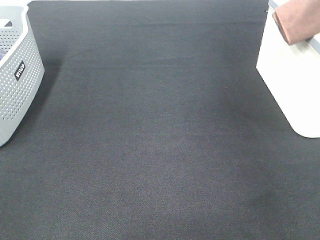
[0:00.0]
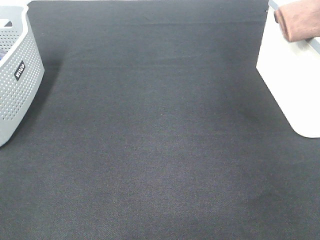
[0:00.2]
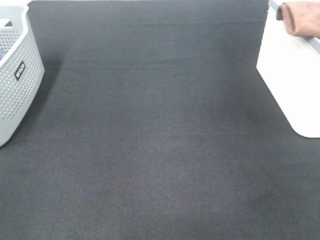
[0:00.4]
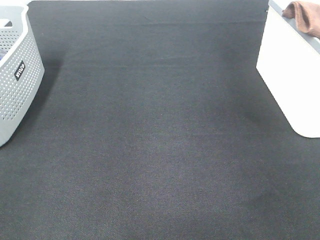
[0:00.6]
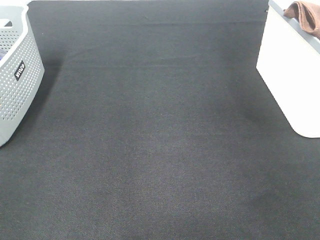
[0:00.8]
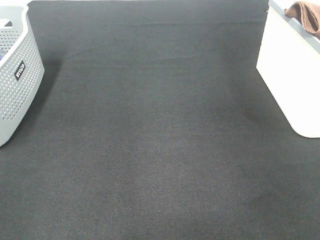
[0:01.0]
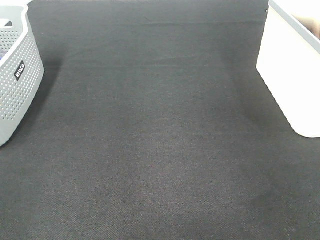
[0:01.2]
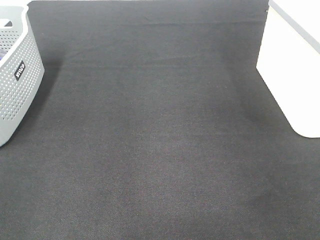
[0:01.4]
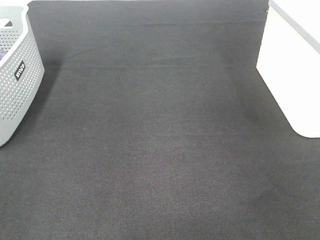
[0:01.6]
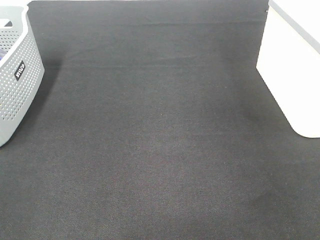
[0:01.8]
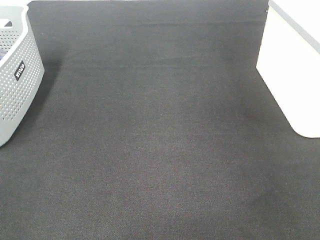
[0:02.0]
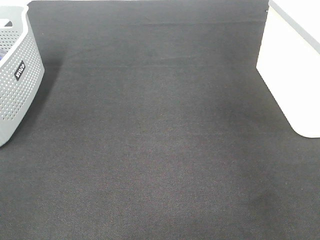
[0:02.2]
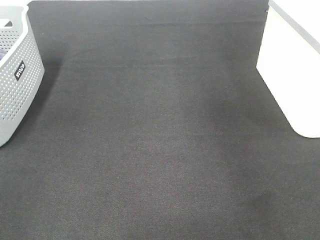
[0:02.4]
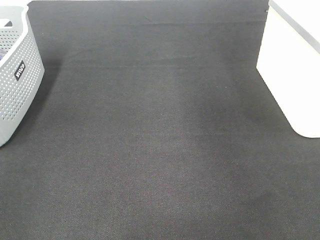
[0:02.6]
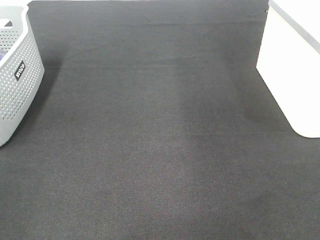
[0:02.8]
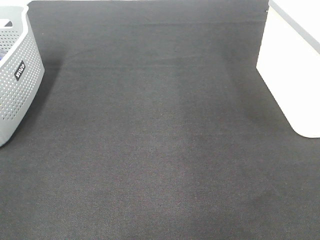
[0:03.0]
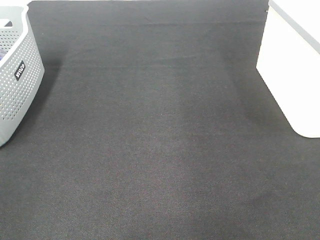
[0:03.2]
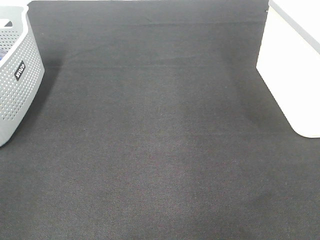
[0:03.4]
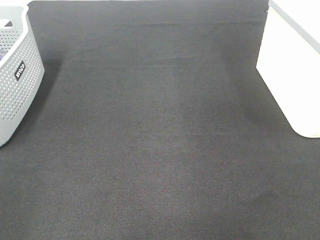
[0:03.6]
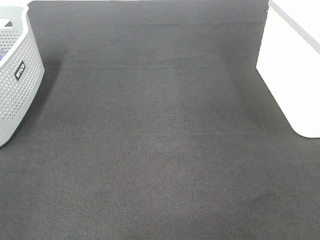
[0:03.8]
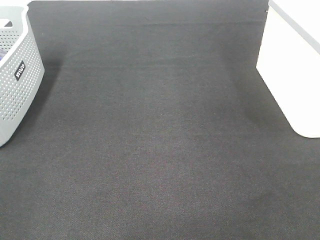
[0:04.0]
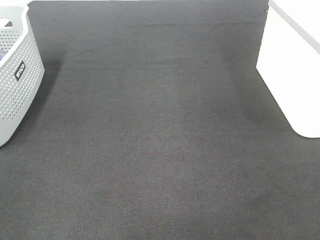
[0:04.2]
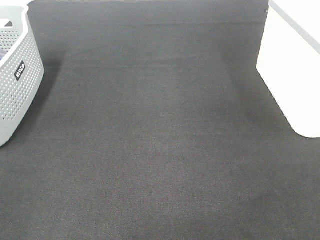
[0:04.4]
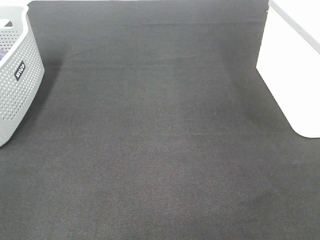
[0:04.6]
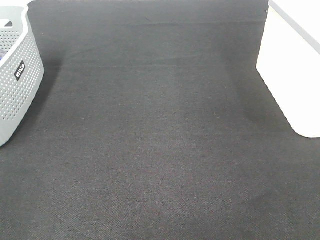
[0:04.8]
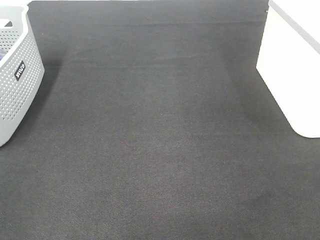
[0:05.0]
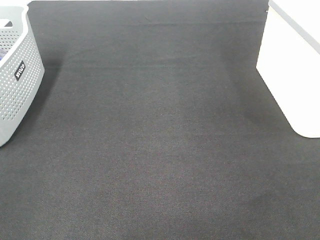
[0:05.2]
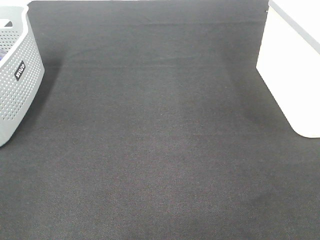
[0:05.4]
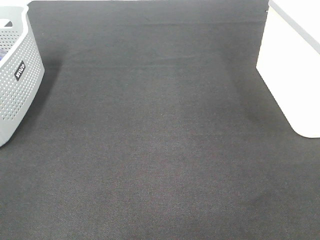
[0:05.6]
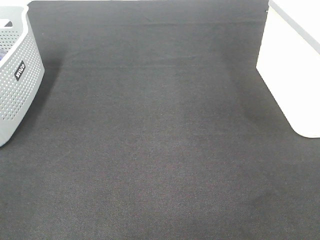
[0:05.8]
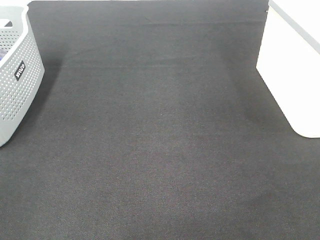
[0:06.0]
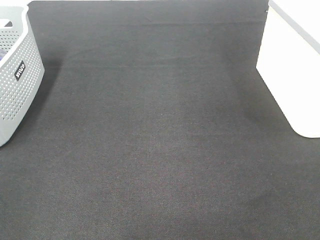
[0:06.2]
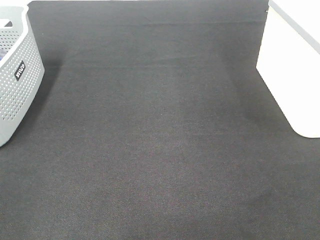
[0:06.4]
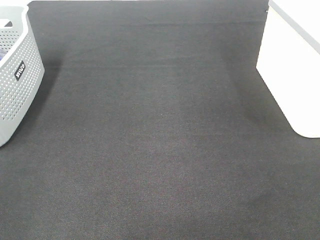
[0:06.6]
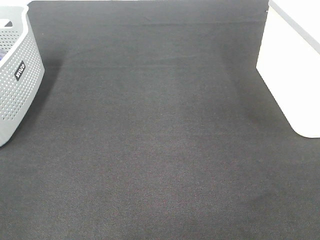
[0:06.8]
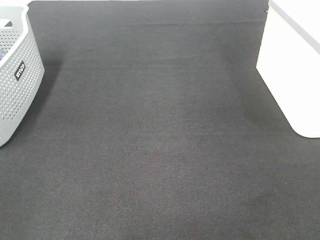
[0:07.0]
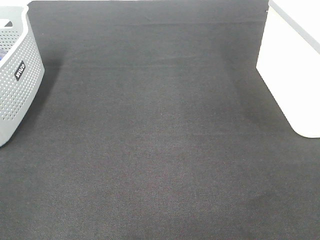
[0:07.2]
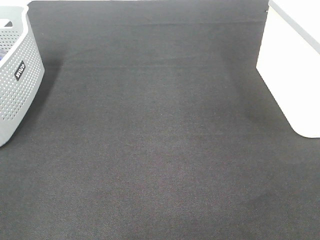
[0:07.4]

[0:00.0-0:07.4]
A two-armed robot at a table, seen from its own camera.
0:00.0 to 0:01.4: The right gripper moves downward, some 5 cm, and opens its fingers.
0:06.0 to 0:07.4: Both grippers stay put.

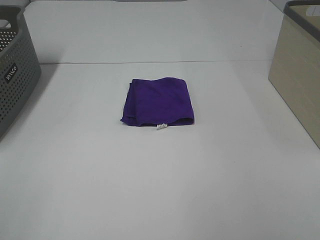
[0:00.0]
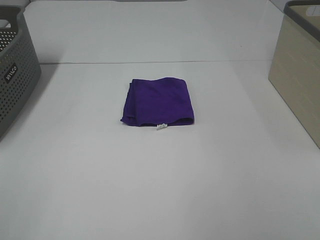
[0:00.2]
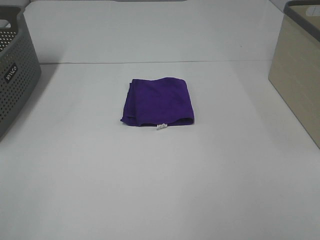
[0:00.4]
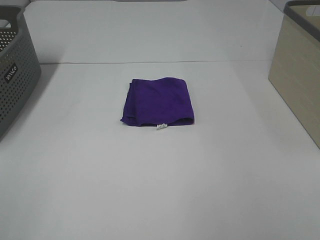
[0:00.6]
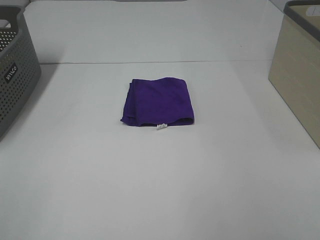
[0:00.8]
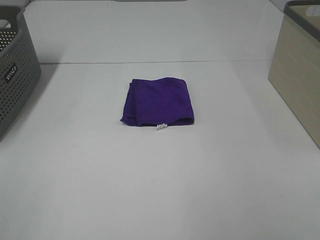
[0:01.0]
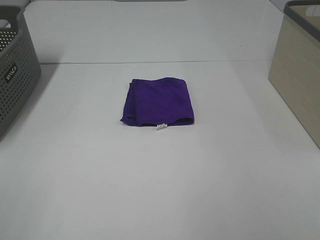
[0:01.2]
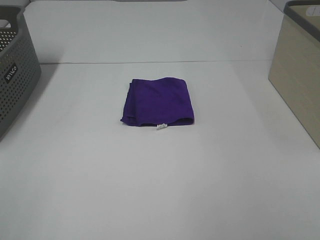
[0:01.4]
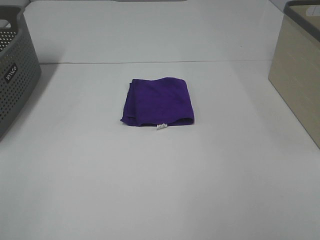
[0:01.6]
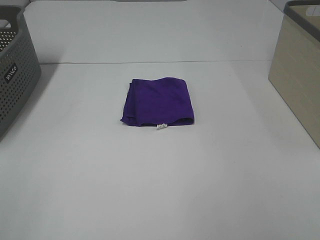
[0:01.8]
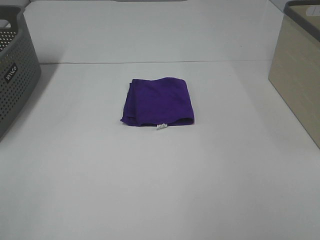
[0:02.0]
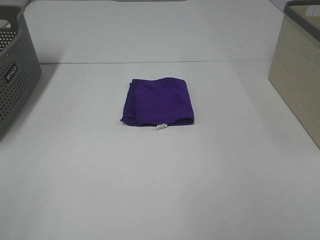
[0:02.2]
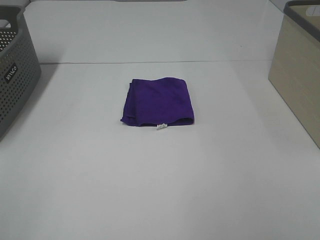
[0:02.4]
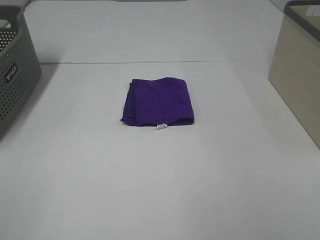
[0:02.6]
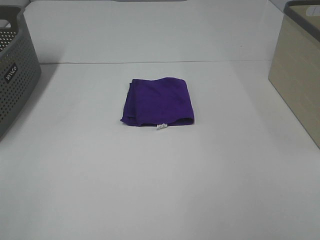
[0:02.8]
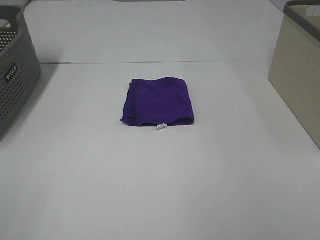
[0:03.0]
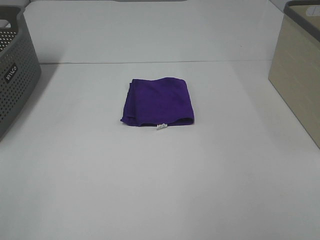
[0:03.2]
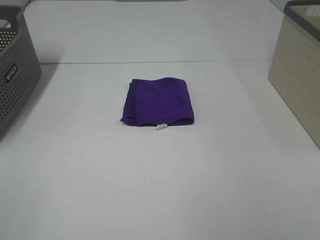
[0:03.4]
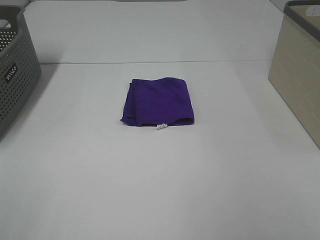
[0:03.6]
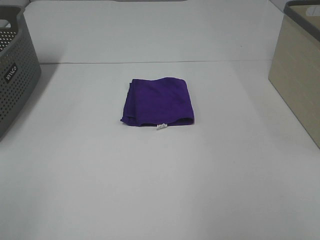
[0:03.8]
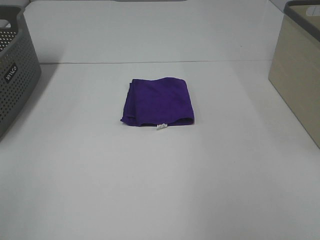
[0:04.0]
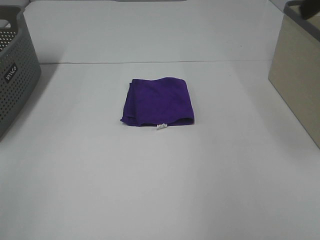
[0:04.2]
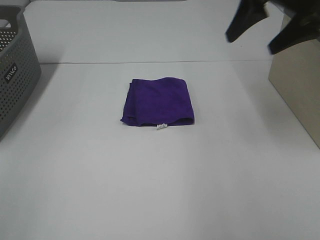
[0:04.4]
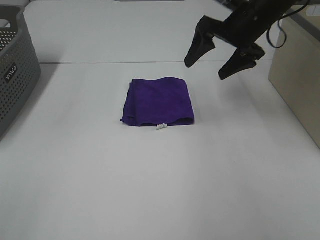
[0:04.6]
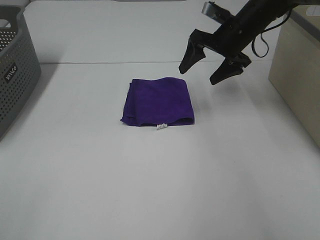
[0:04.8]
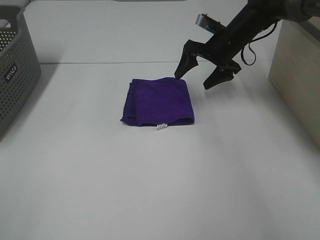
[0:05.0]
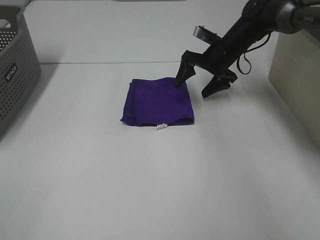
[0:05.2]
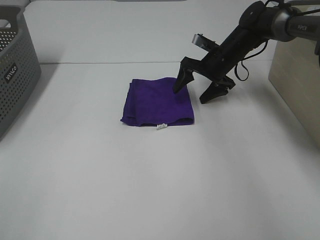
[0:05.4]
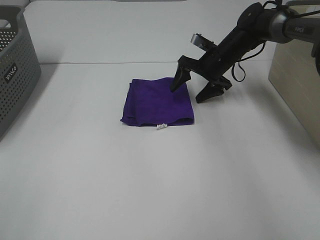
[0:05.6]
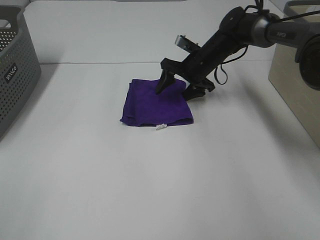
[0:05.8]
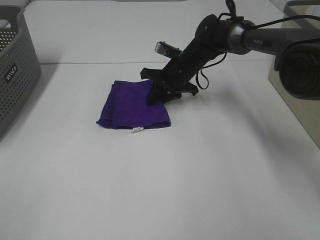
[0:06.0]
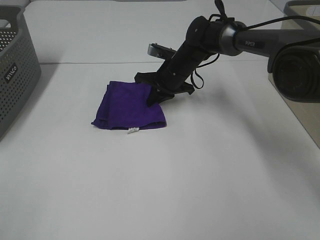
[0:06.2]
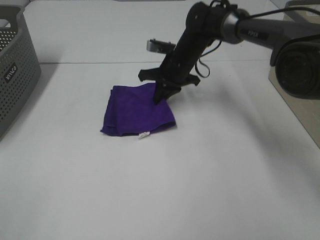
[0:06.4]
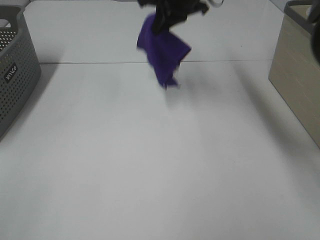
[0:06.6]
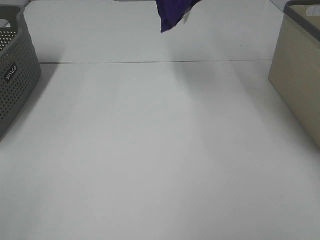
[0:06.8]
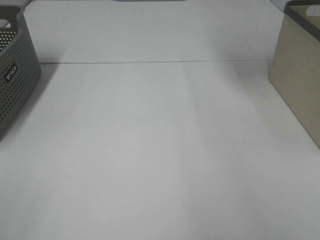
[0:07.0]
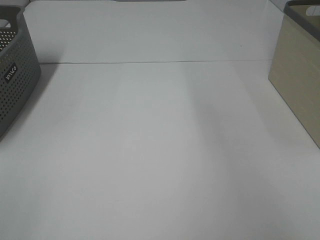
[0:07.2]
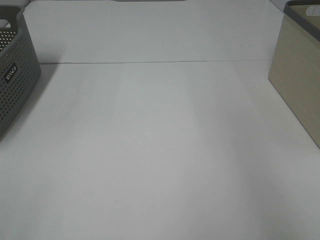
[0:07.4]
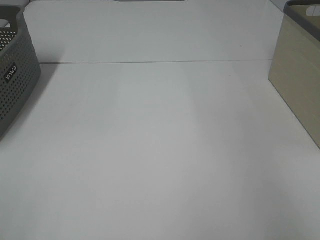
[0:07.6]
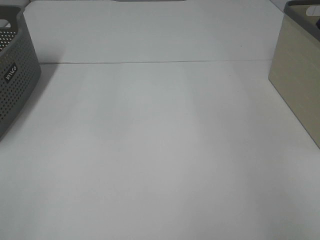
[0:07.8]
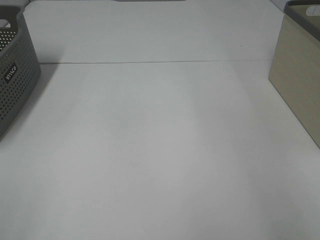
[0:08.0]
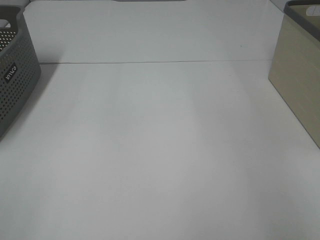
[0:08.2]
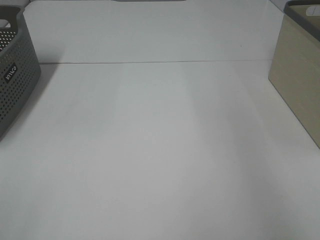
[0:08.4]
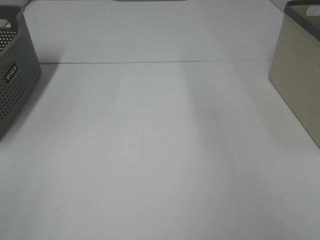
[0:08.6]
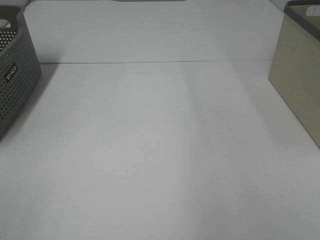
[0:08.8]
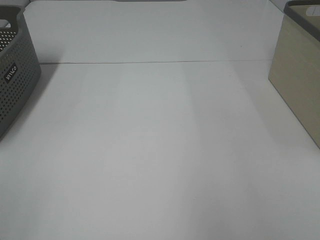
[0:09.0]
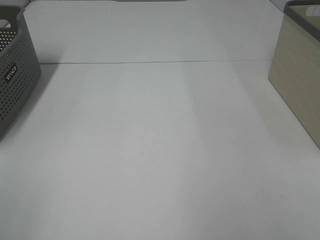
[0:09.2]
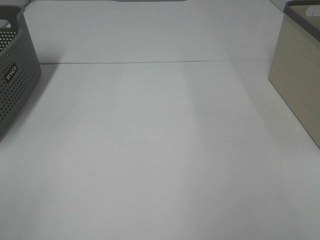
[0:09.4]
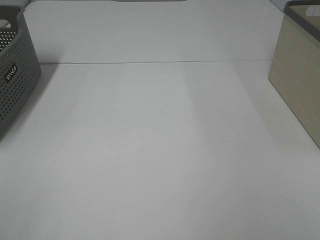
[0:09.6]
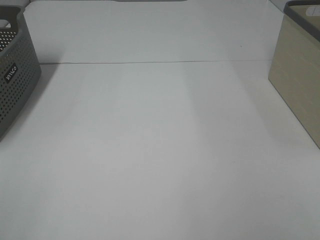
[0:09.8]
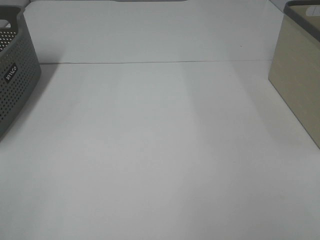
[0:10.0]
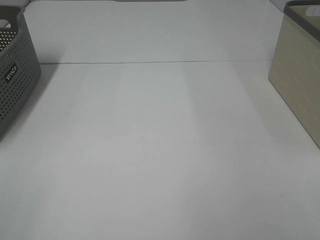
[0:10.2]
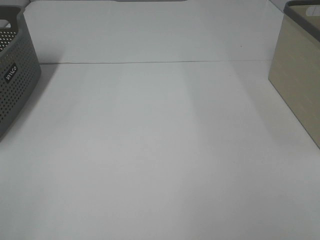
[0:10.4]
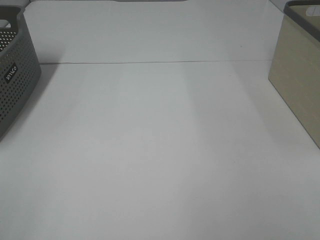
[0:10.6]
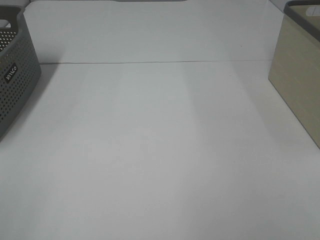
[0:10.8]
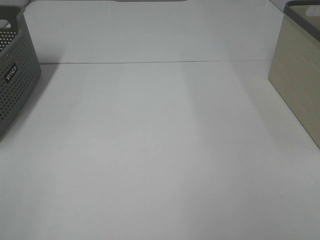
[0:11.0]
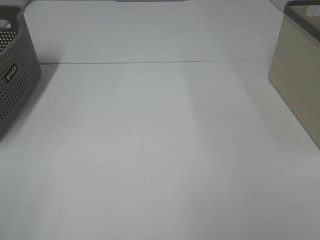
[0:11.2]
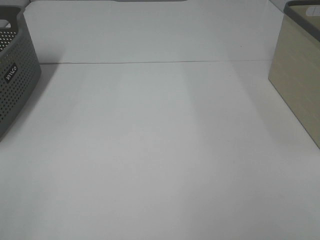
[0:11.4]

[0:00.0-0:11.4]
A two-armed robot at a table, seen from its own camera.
Step, 0:00.0 to 0:06.2: Right hand: grab the folded purple towel.
Step, 0:06.4 to 0:08.2: Right hand: place the purple towel in right basket.
0:00.0 to 0:02.8: The two grippers keep their place.
0:04.2 to 0:05.6: The right gripper shifts approximately 35 cm downward, forward and to the left.
0:05.6 to 0:07.2: The right gripper is displaced upward and to the right by some 40 cm, and closes.
0:10.0 to 0:11.4: Both grippers stay put.

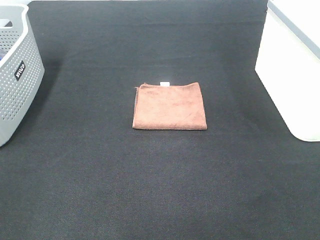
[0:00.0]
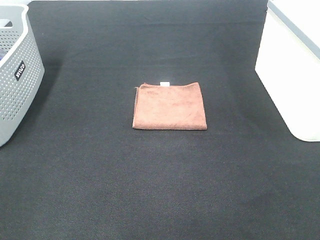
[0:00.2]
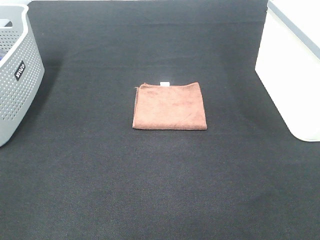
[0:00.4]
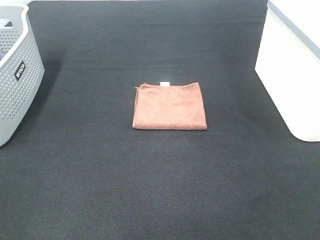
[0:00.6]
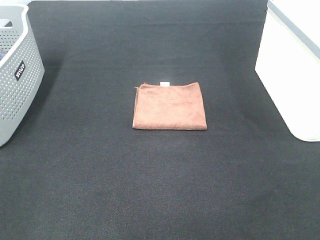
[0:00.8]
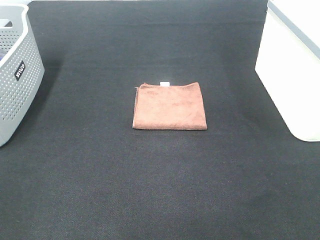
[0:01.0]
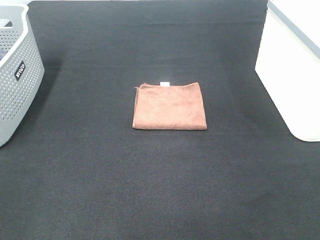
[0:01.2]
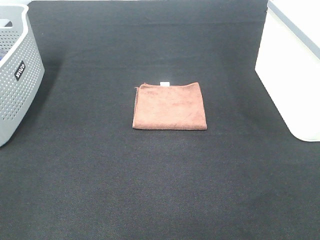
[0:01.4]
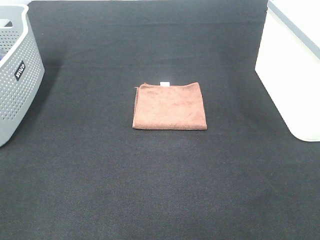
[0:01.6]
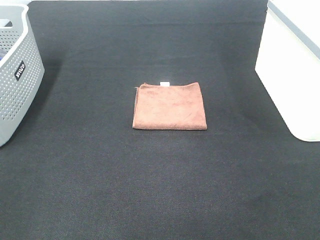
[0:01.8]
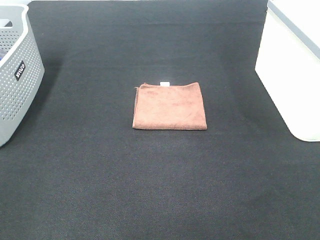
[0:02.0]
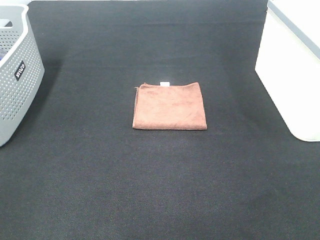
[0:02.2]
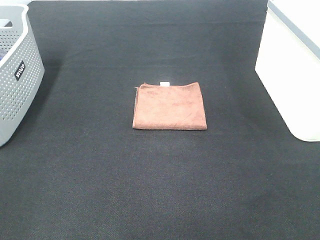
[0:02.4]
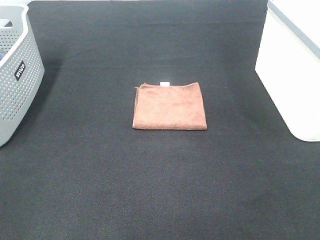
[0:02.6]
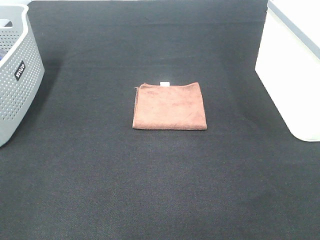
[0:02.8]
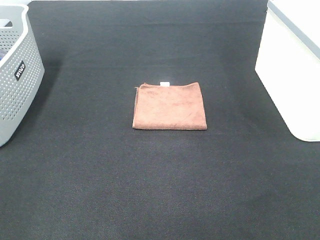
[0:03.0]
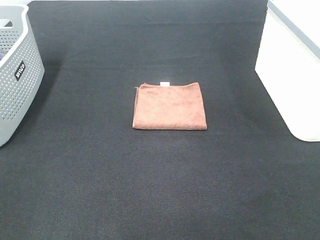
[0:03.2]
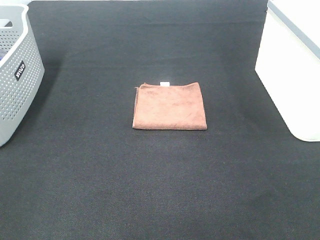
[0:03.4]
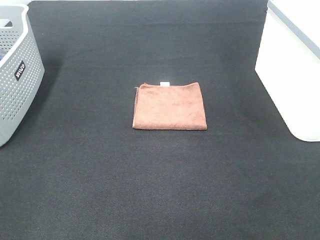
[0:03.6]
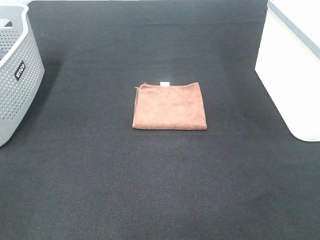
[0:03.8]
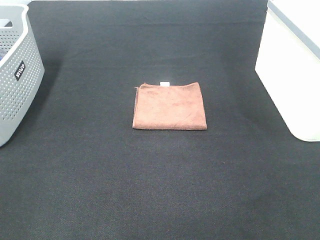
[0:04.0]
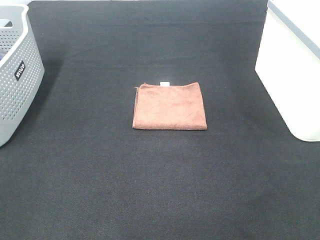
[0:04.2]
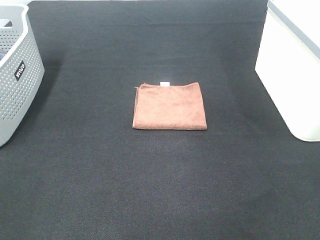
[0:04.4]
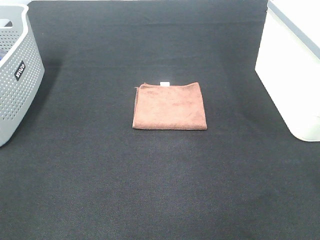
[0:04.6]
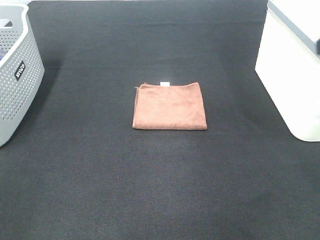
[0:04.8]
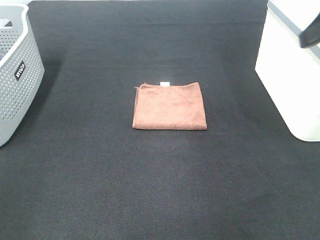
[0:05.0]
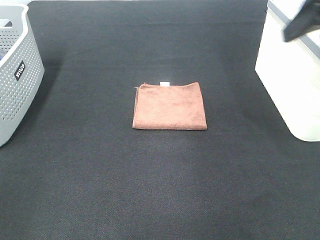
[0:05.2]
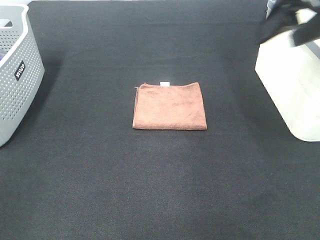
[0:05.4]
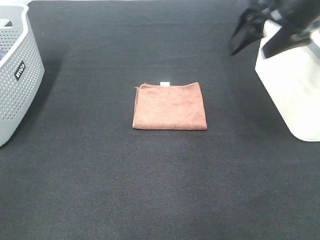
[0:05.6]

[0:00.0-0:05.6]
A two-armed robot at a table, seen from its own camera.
0:00.0 to 0:02.8: The two grippers keep their place.
0:04.2 to 0:05.6: The right gripper heads forward, covering roughly 25 cm.
